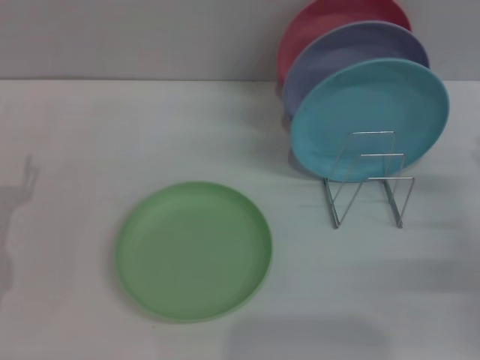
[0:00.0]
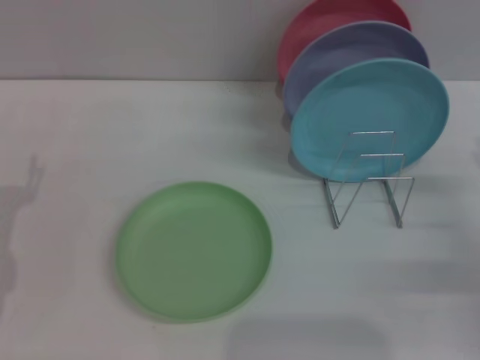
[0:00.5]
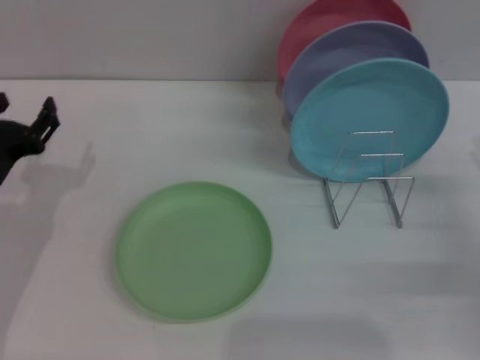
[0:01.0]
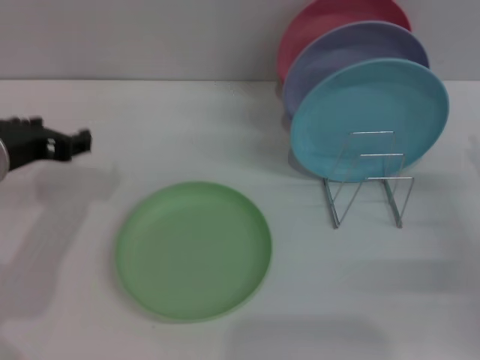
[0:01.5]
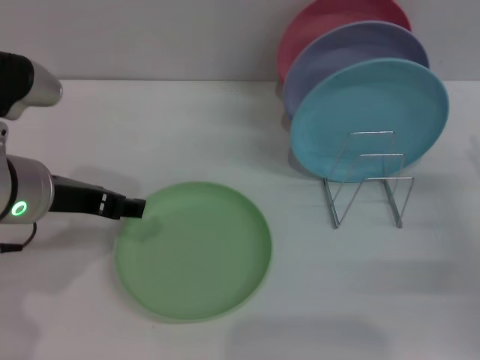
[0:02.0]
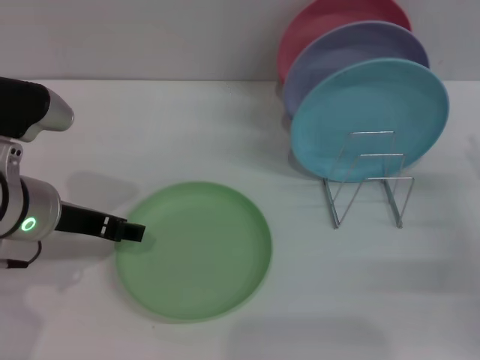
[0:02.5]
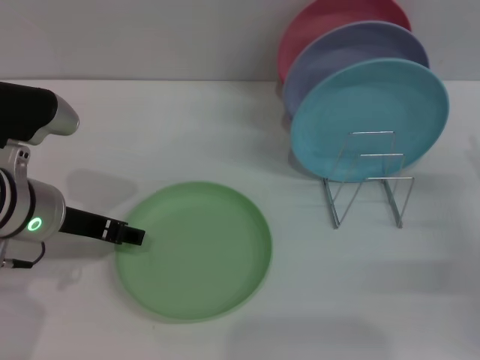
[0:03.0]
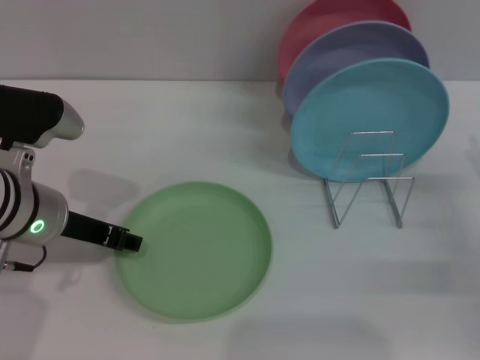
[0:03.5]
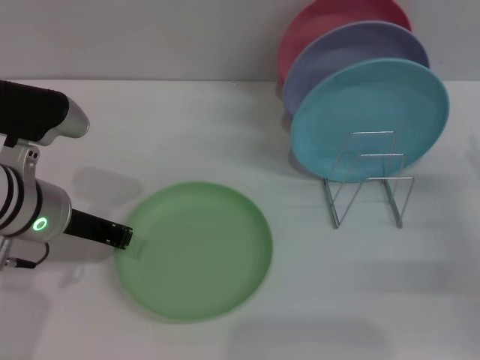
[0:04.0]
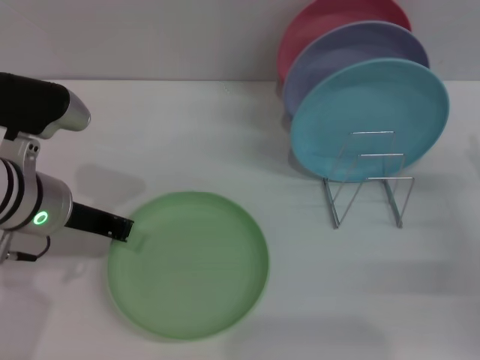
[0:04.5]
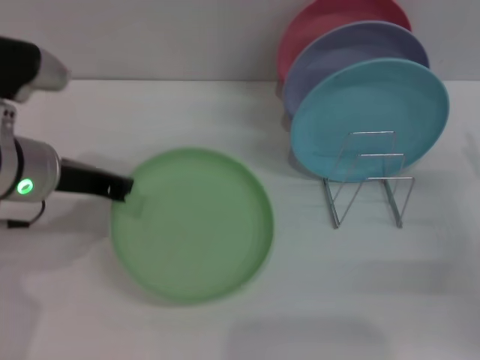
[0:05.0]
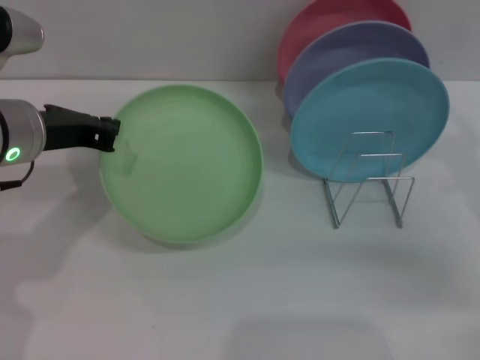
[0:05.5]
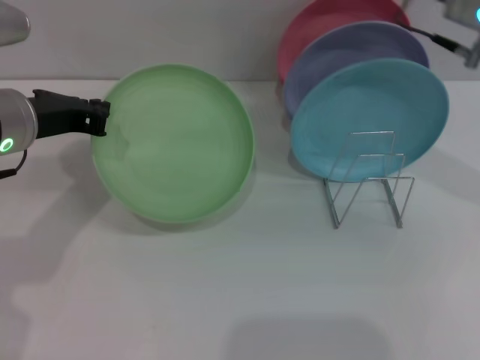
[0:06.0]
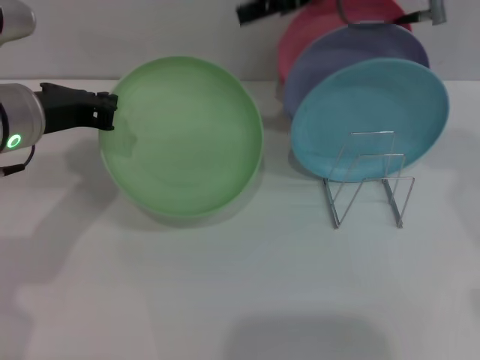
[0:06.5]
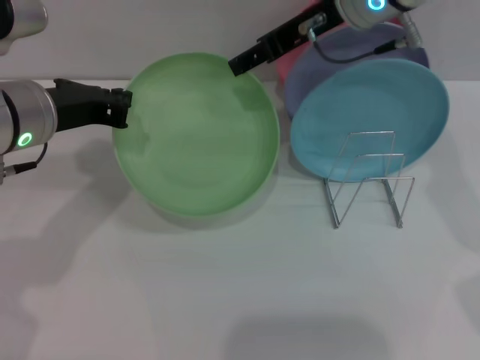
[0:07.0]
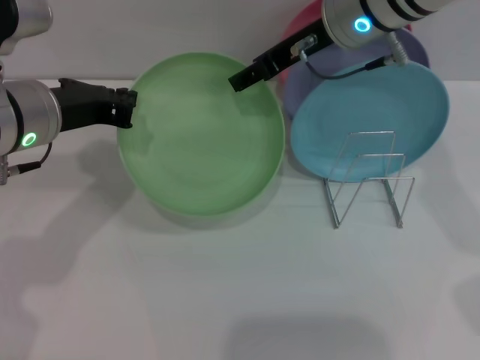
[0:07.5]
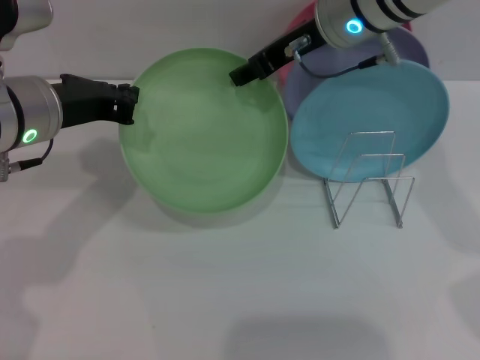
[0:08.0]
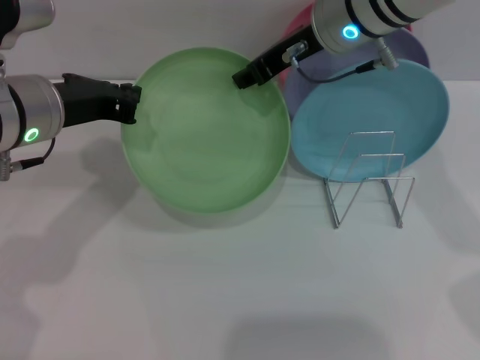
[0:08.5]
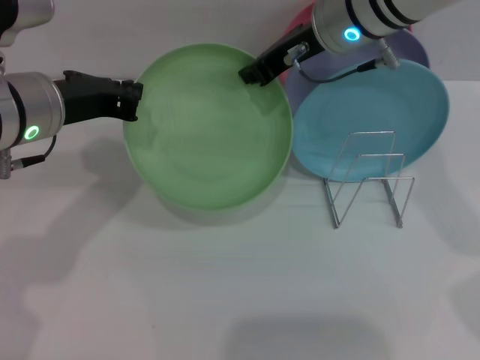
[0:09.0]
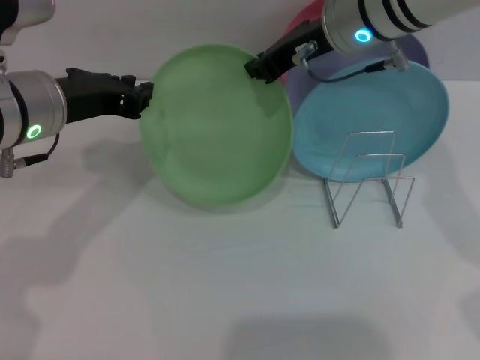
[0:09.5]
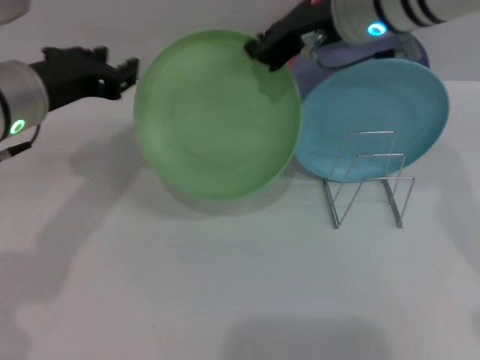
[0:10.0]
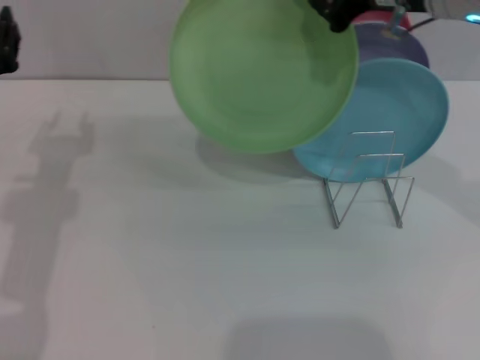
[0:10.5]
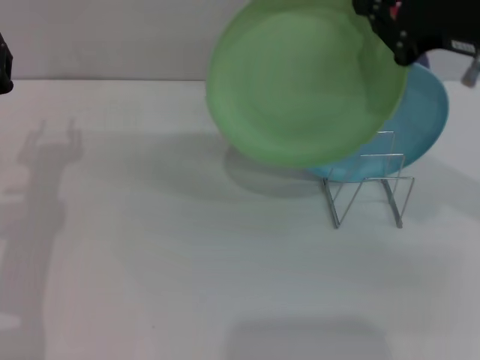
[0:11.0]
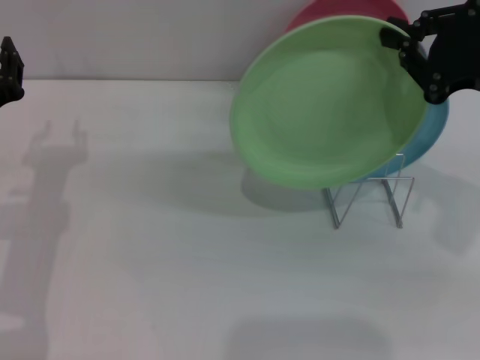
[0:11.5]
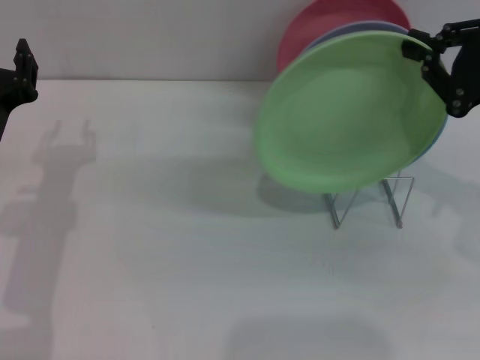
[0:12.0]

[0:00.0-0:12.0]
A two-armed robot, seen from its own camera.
Task of the whole recording: Grip the plate with one hand, pass it to the other, then set it on the shelf.
Step, 0:00.0 to 0:06.0: Pick up the plate with the left gripper.
Step, 0:06.5 to 0:10.0: Pass the plate from the left gripper to the right gripper.
0:00.0 to 0:02.0: The left gripper heads upward and to the right, covering roughly 15 cm.
0:02.0 to 0:04.0: The left gripper closes up.
0:04.0 to 0:06.0: The left gripper goes some 5 cm upward, and closes. Meanwhile the right gripper shifts some 25 cm upward, to the left and forward.
0:06.0 to 0:08.0: The right gripper heads to the left, covering some 10 cm.
0:08.0 to 0:10.0: The left gripper opens. Meanwhile the right gripper closes its fingers.
0:10.0 to 0:12.0: The right gripper is displaced to the right and backward by roughly 20 cm. Meanwhile the left gripper goes approximately 10 cm downward.

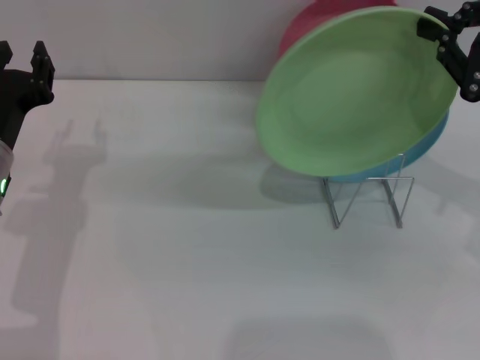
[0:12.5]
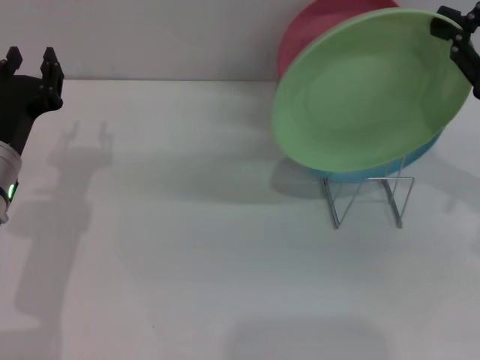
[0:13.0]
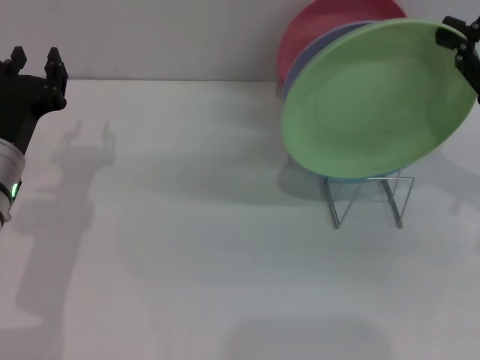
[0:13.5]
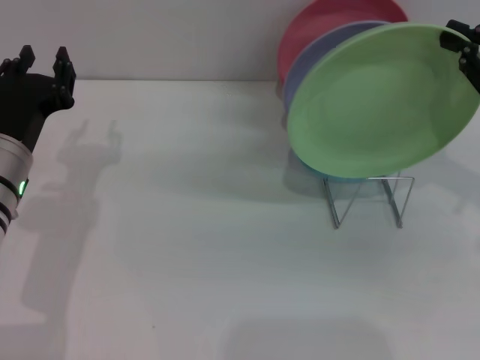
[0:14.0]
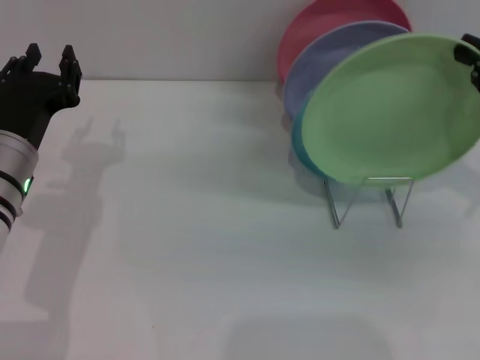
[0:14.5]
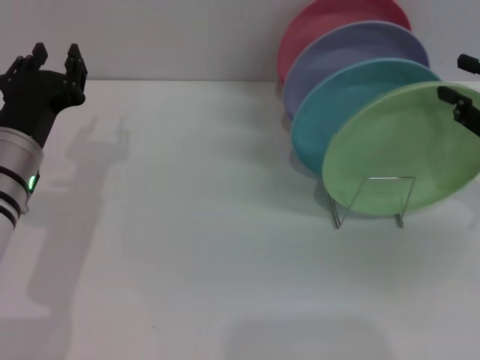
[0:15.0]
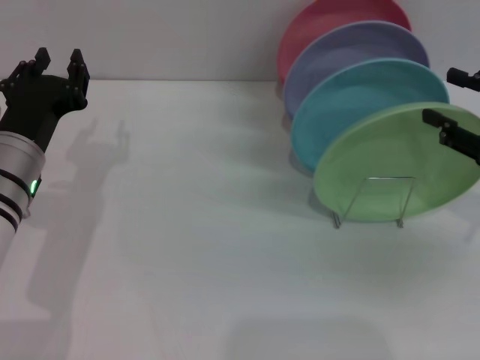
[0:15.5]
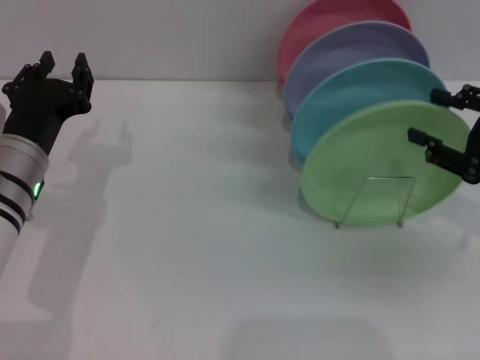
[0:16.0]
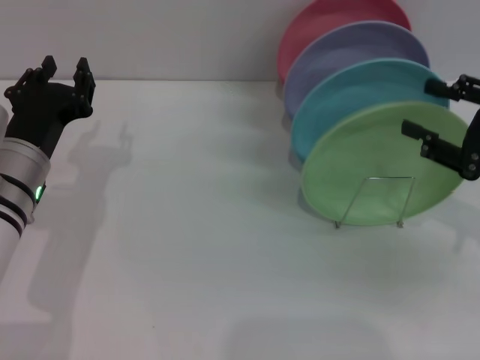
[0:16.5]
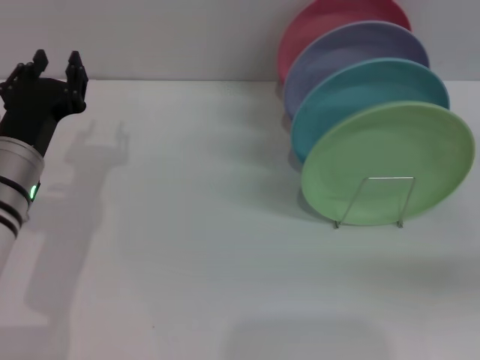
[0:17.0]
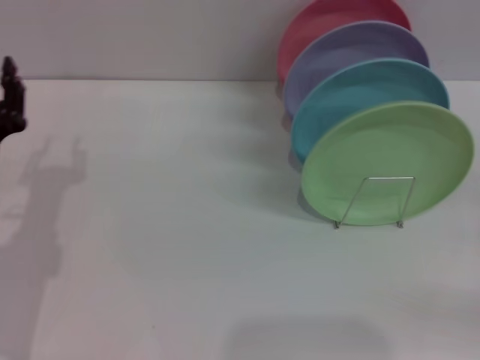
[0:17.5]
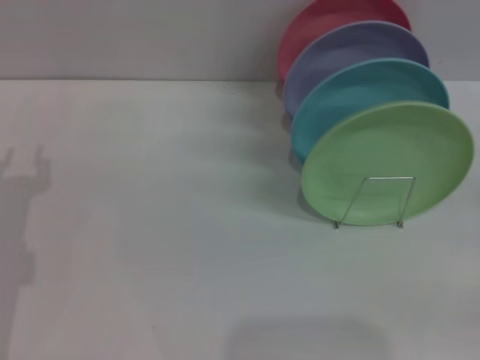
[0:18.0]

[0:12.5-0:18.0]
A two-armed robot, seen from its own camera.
Task of the whole recording: Grip the plate with one hand, pass it to the other, then set it on the shelf.
Step, 0:12.5 to 0:16.5: Place the plate on the shelf with the right gripper.
0:12.5 to 0:14.5: There are only small adjustments of the grippers.
0:14.5 to 0:16.0: The right gripper opens its fingers.
0:16.0 to 0:18.0: The left gripper heads to the left, covering about 5 cm. Meanwhile the right gripper goes about 10 cm to the right and downward.
